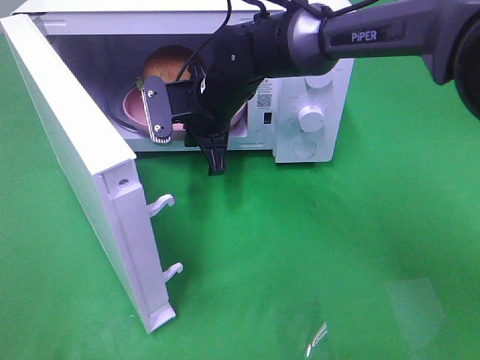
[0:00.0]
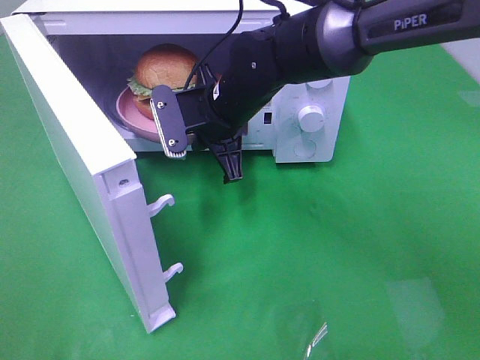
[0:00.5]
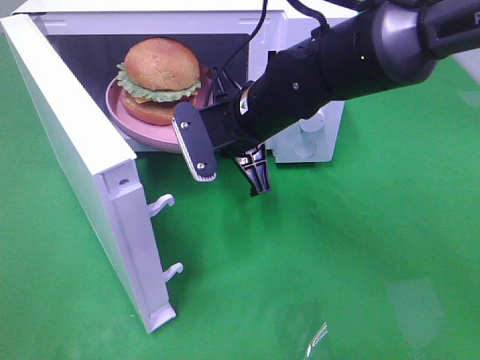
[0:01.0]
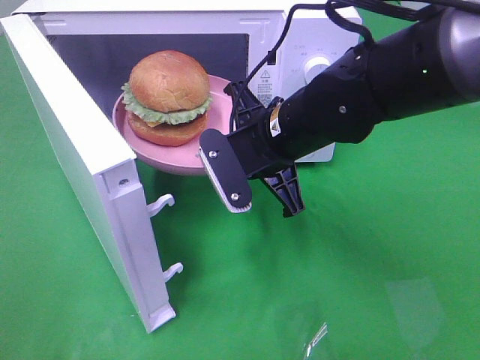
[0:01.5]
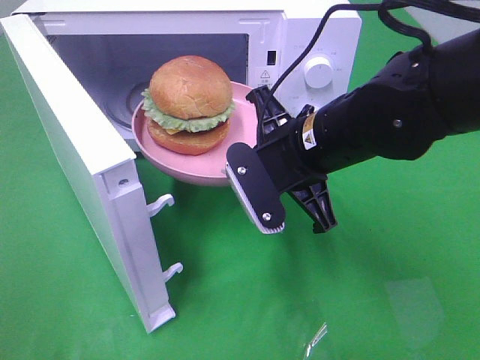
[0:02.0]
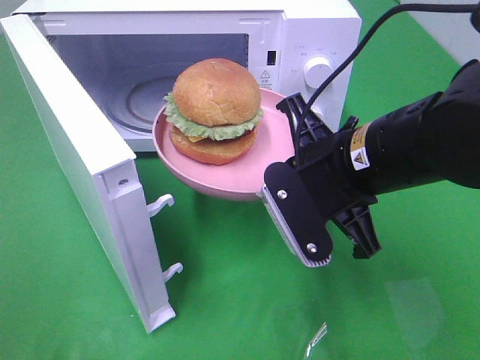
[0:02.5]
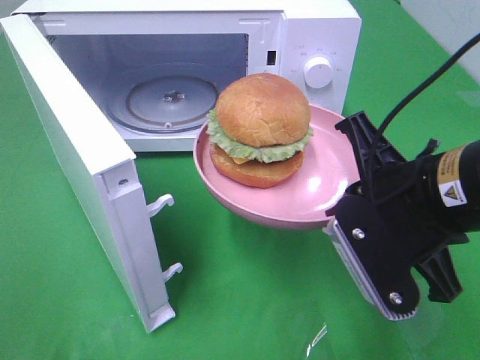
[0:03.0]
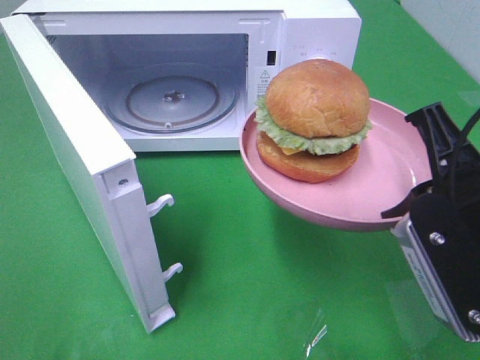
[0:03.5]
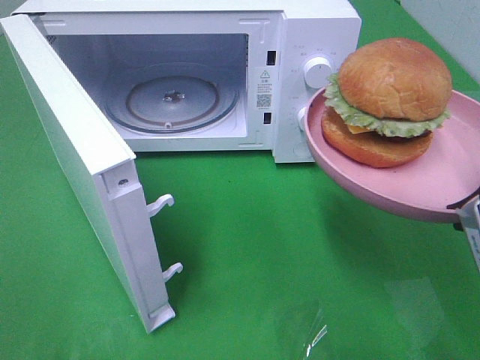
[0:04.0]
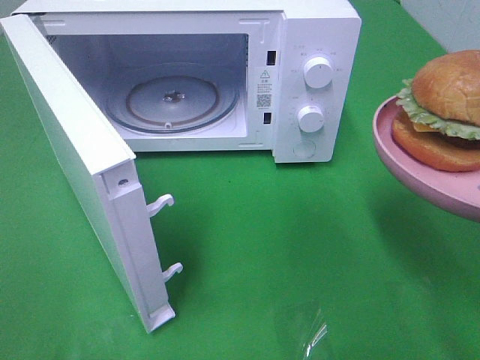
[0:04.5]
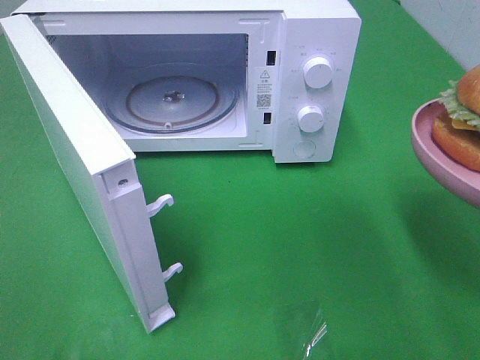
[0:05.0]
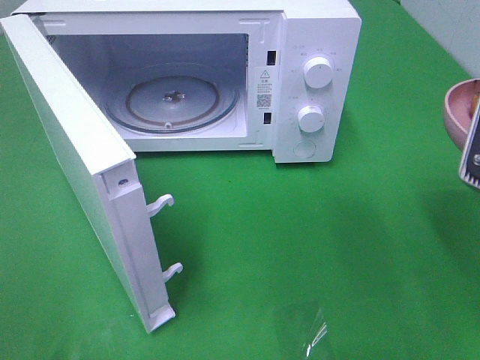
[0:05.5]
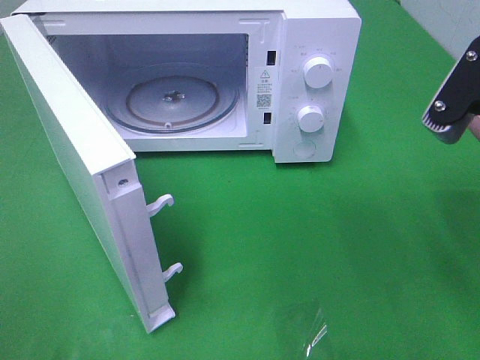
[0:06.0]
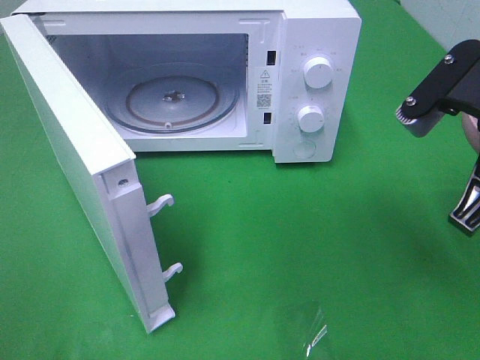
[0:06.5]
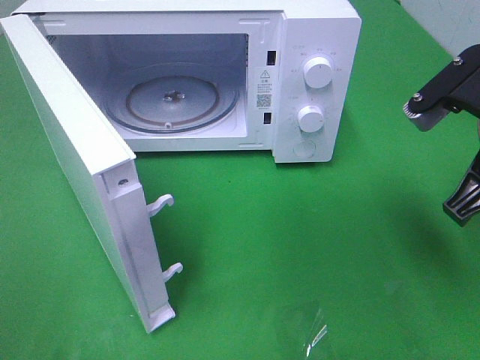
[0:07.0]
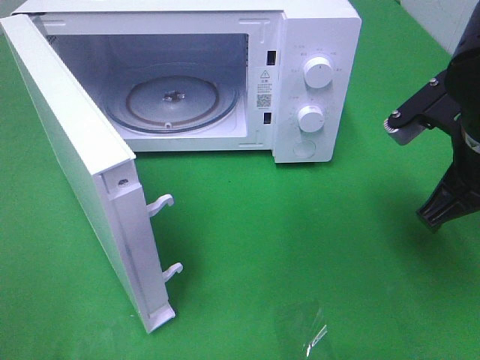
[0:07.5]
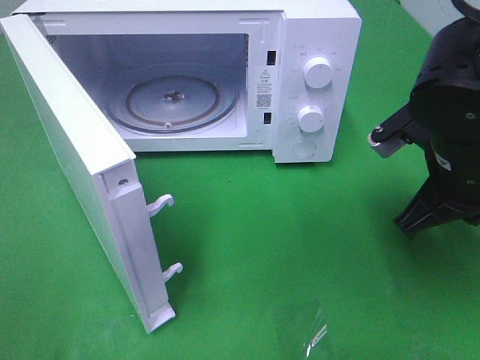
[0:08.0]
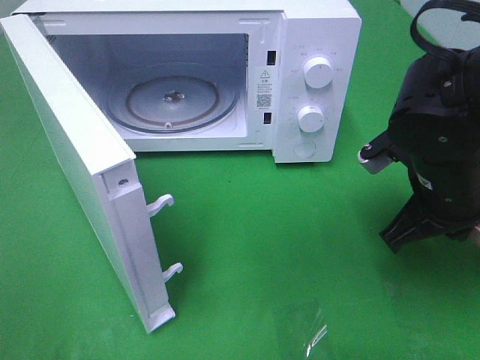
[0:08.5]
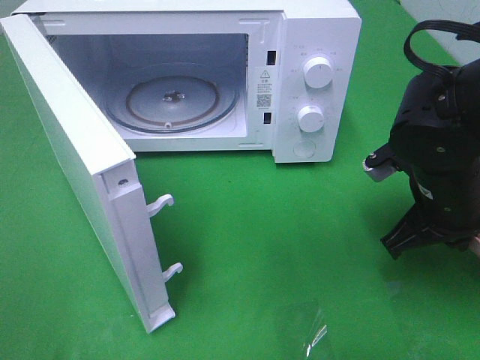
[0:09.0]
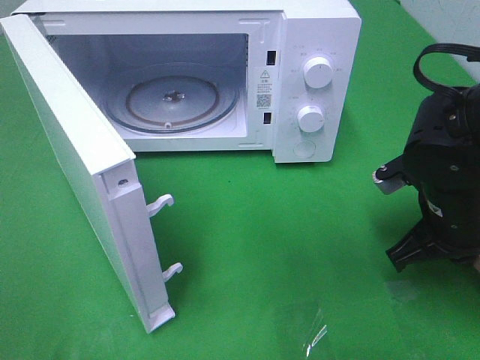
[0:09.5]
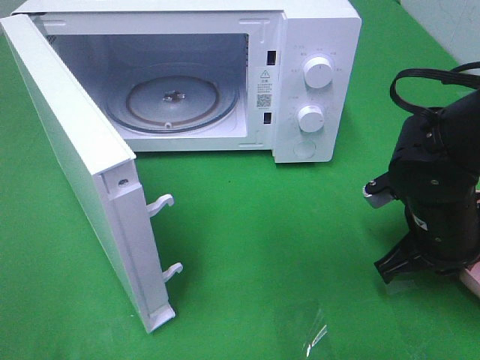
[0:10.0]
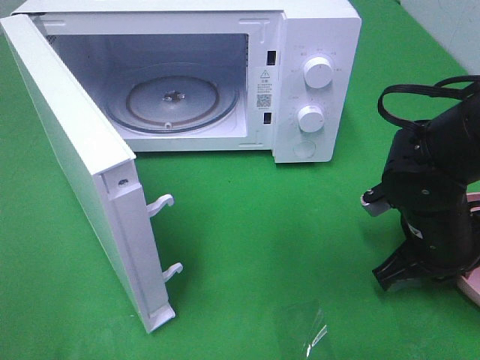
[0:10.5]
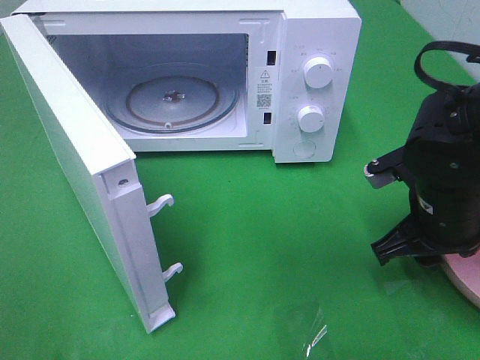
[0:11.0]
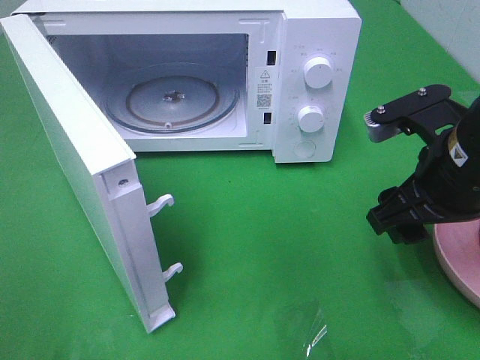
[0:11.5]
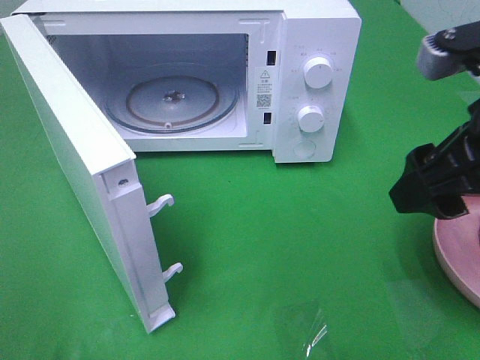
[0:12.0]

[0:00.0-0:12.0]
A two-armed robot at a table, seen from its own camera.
Task of the whole recording: Heat the burger.
Step, 0:00.0 to 0:11.0: Right hand: place the plate on the table.
0:00.0 to 0:02.0: The right gripper heads backward and to the right, covering approximately 15 cm.
0:02.0 to 0:04.0: The right gripper goes roughly 20 cm backward, to the right and upward.
0:04.0 to 0:06.0: The right gripper shifts approximately 5 cm forward.
0:06.0 to 0:08.0: The right gripper shifts about 10 cm downward and forward.
0:08.0 to 0:10.0: The right gripper goes some 10 cm downward.
0:10.0 to 0:12.0: The right gripper shifts roughly 15 cm upward, and opens up.

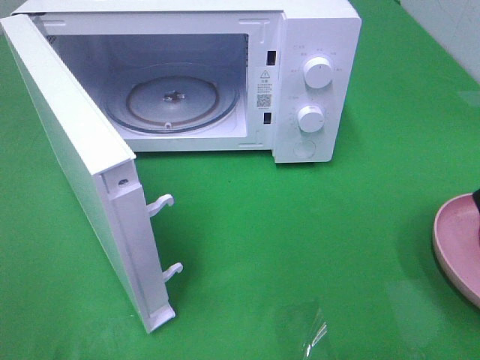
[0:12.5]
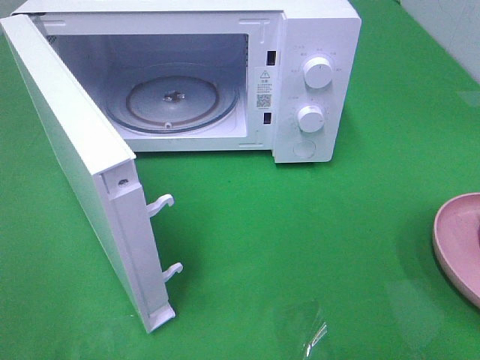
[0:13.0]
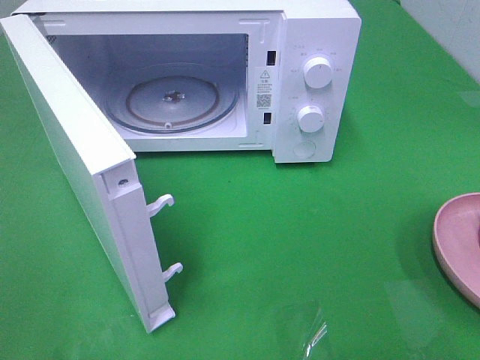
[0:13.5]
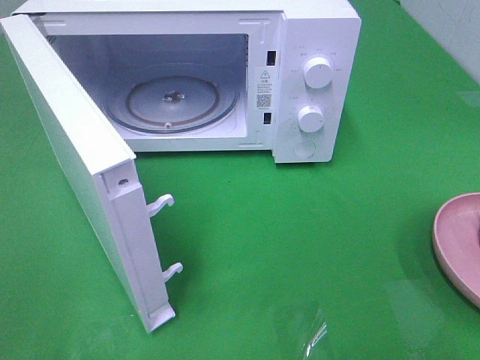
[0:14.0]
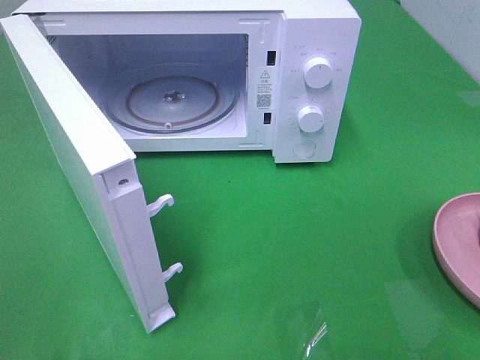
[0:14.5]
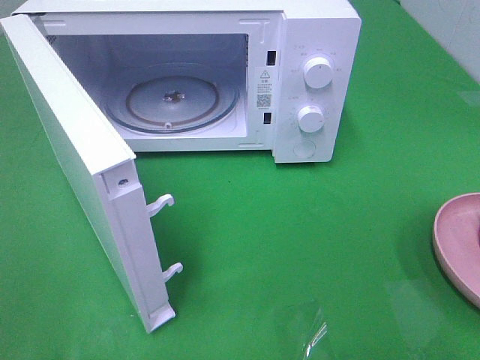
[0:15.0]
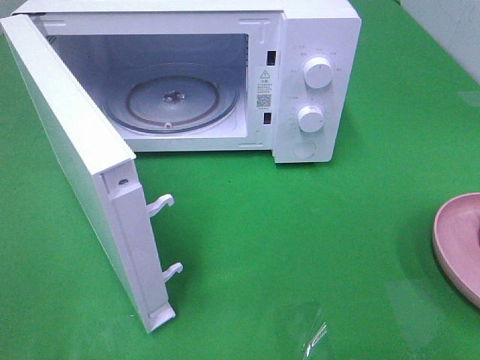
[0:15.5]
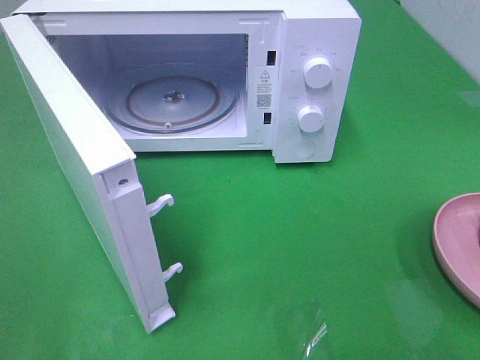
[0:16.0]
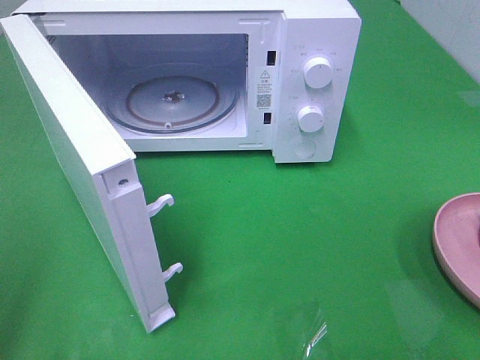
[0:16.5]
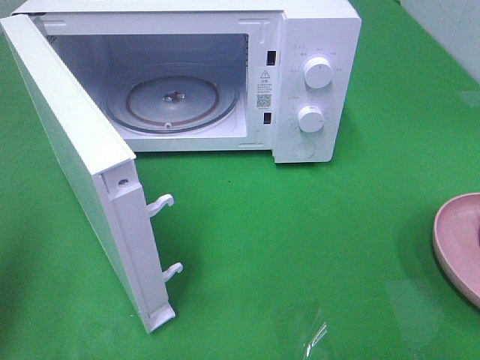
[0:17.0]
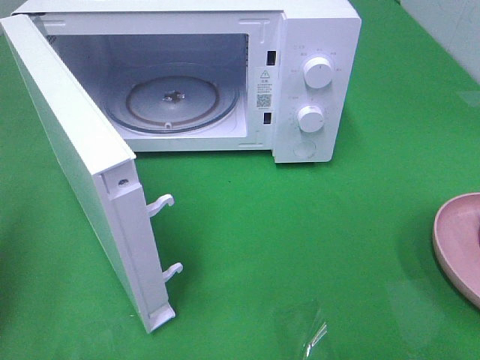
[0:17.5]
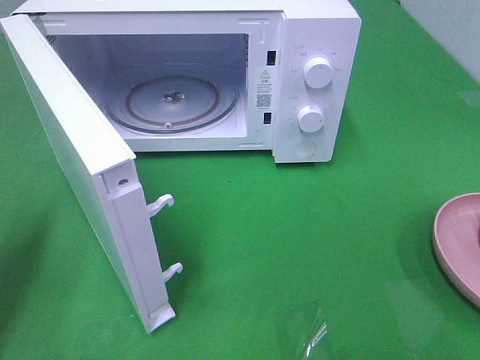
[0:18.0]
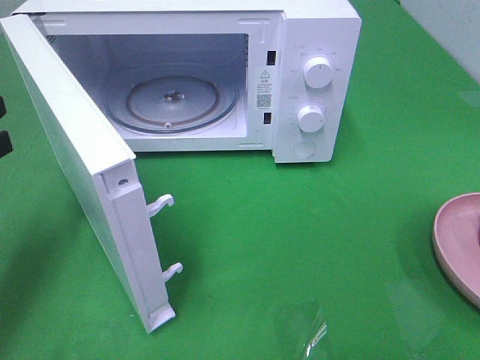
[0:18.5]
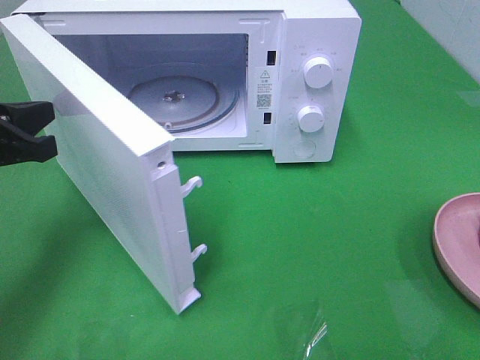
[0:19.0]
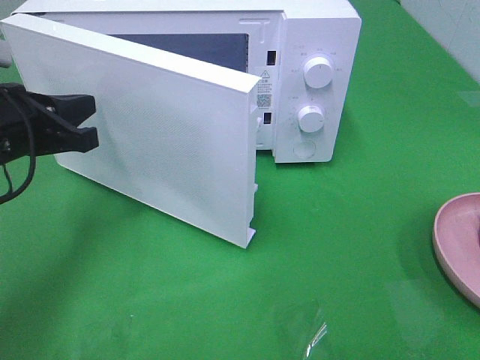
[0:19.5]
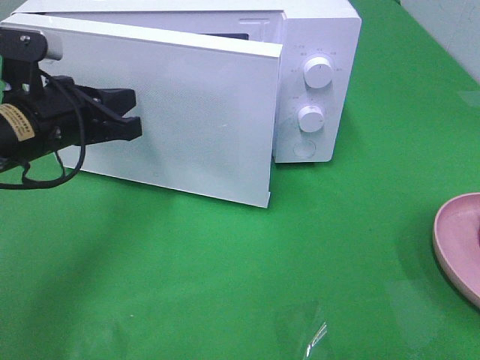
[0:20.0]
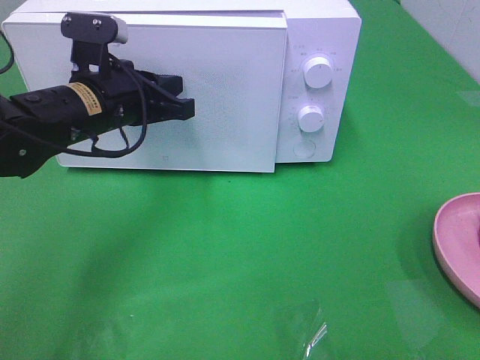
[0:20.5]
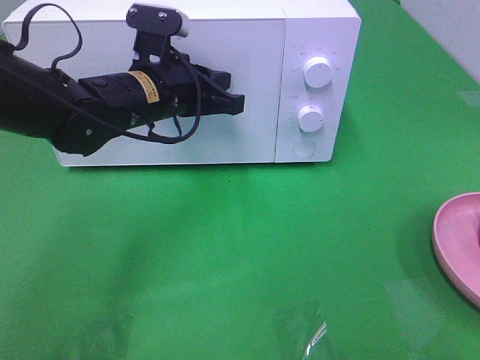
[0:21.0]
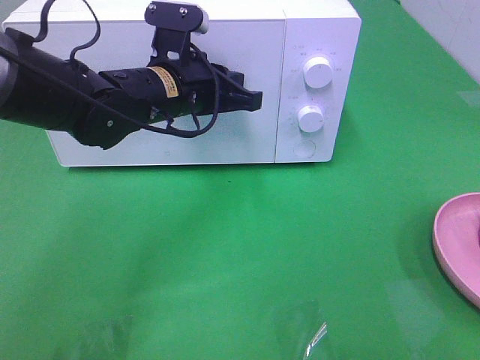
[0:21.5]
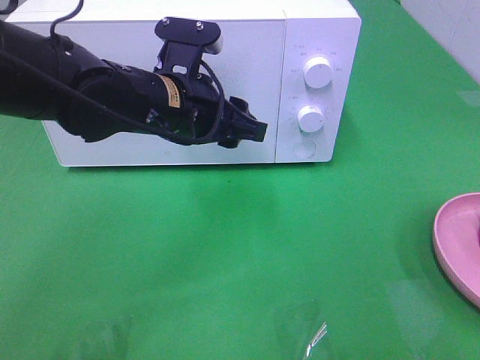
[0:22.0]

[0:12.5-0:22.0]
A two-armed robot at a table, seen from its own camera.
Task of the whole recording: Heat the burger.
0:16.5 to 0:18.0: The left gripper heads forward and downward, covering about 15 cm.
0:18.0 to 0:20.0: The left gripper goes approximately 15 cm to the right and forward.
0:20.0 to 0:22.0: The left gripper is displaced to the right by some 15 cm, and opens up.

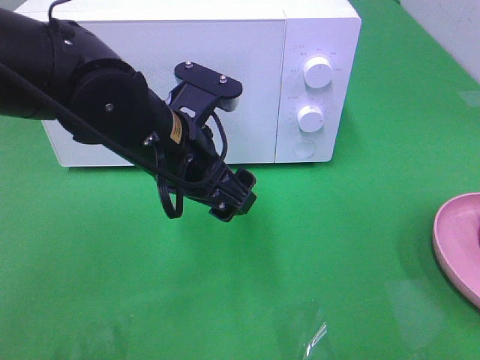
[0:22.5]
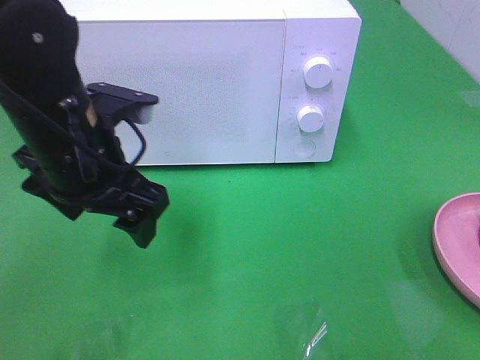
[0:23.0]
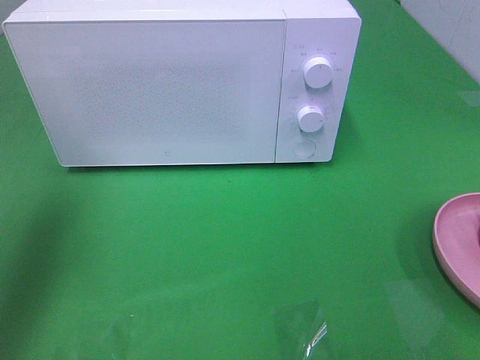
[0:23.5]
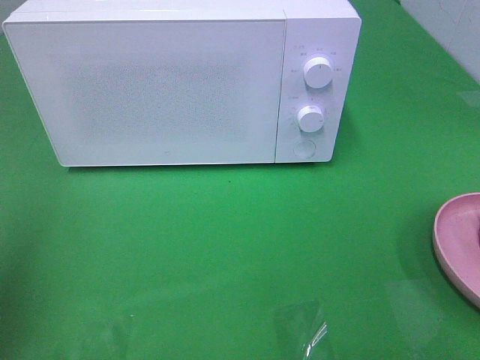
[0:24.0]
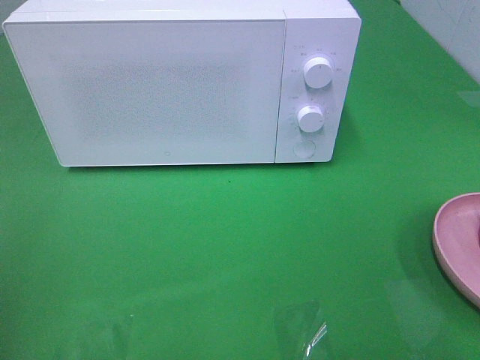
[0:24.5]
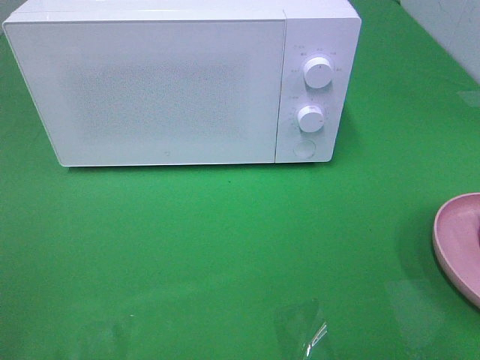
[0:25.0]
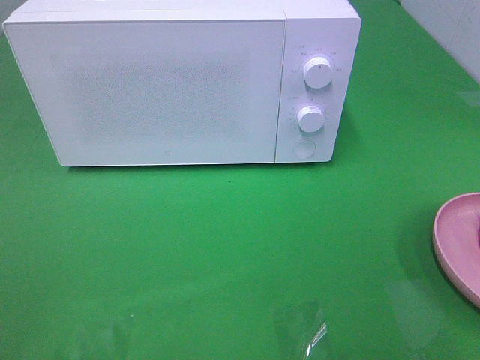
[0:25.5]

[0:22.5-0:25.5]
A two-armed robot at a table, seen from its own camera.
Task of the whole recording: Heat the burger.
0:22.5 to 0:24.0: The left gripper moves to the left and upward, approximately 30 cm.
0:24.0 to 0:25.5: The left gripper goes about 15 cm backward.
